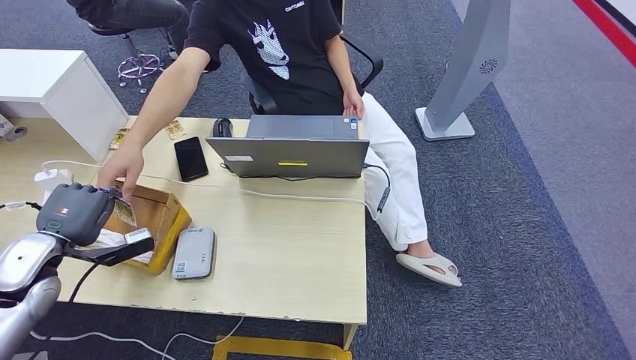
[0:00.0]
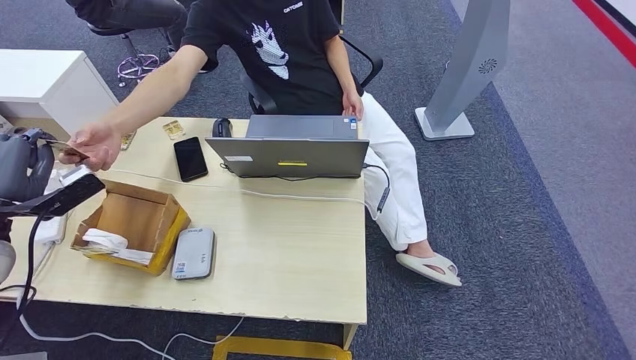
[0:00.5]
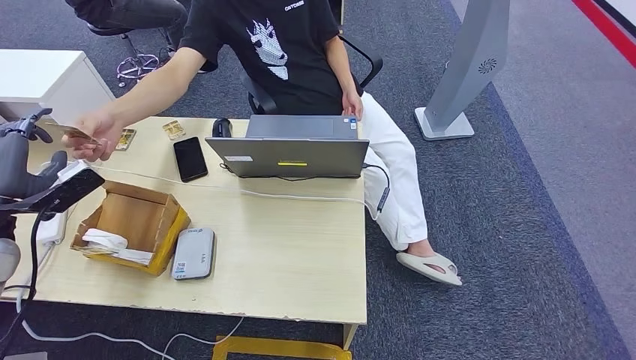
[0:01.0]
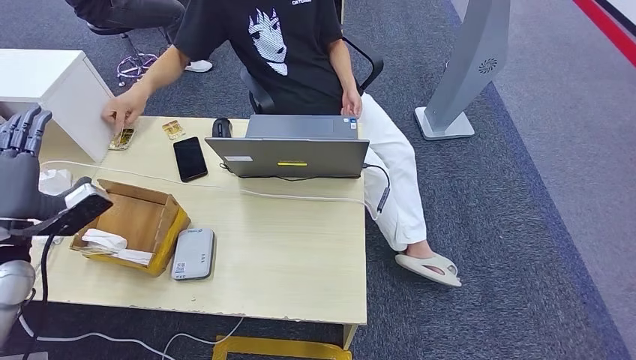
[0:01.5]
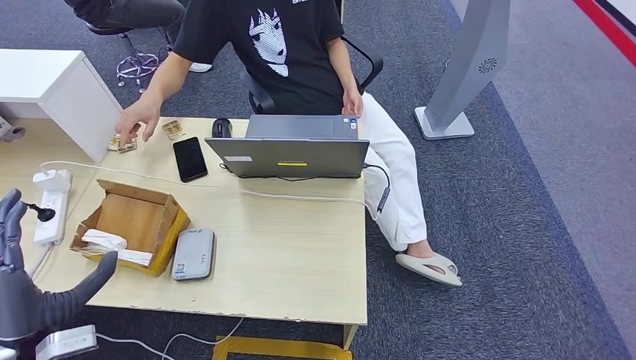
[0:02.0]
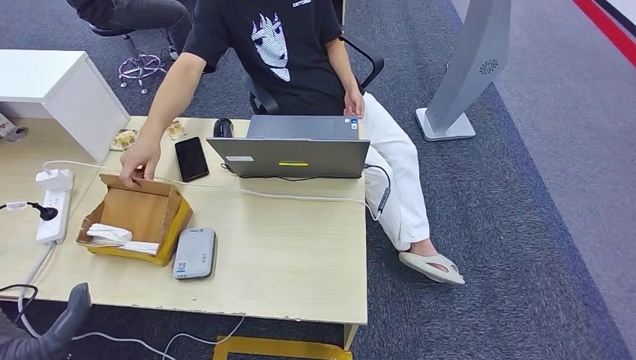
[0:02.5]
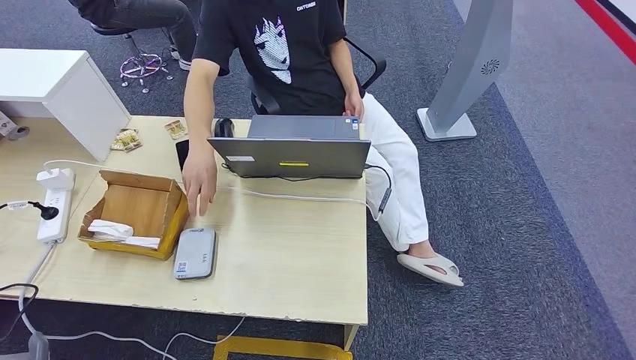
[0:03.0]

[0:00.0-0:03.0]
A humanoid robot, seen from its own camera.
Step, 0:00.5 to 0:03.0: Hand the room key to the person.
0:01.5 to 0:03.0: The left hand shifts roughly 30 cm backward, downward and to the right. The right hand moves some 5 cm.
